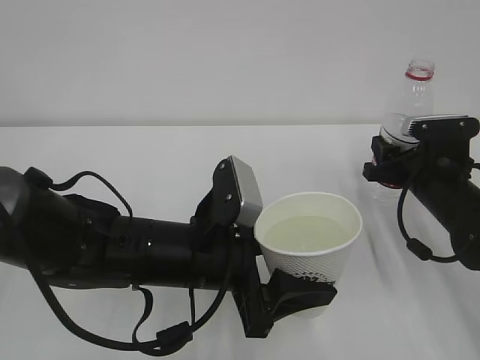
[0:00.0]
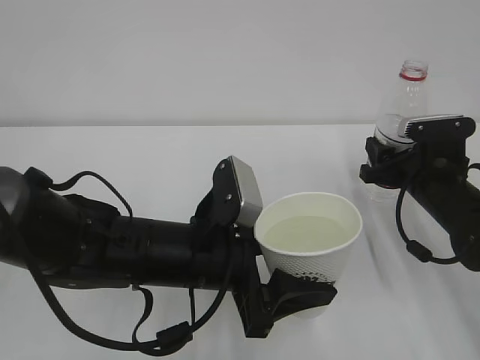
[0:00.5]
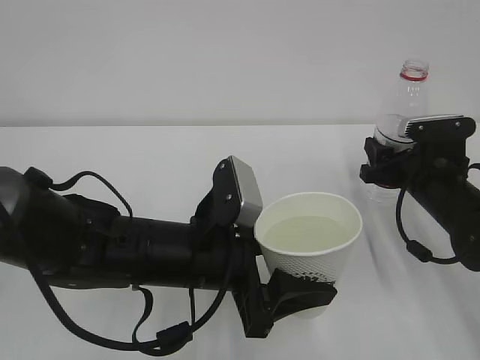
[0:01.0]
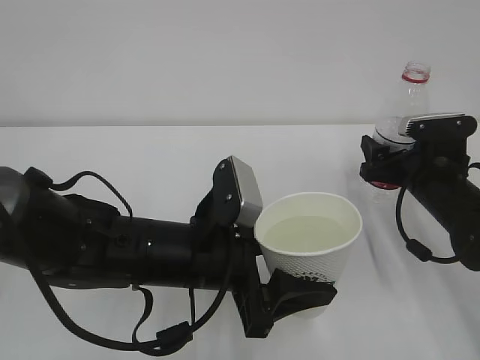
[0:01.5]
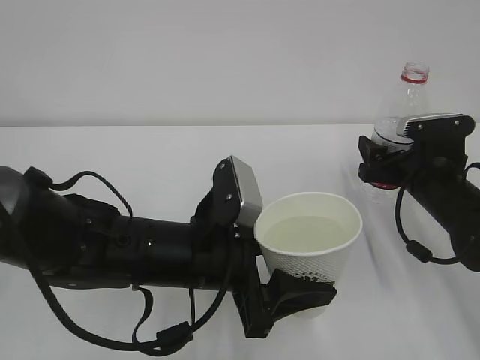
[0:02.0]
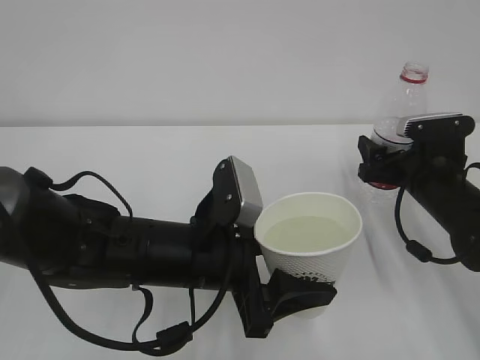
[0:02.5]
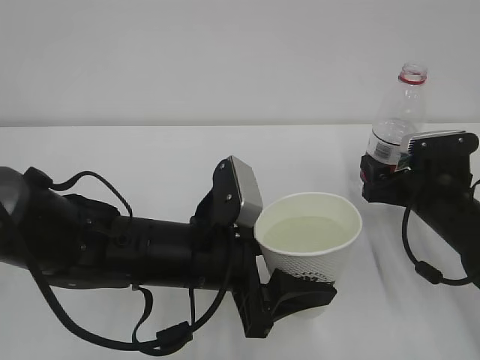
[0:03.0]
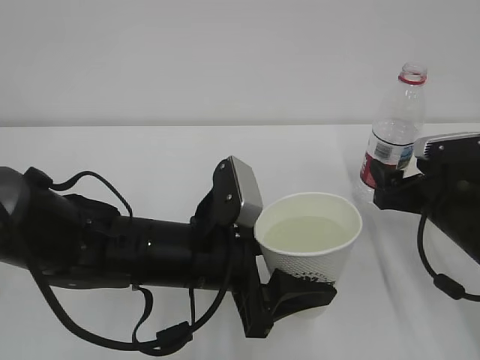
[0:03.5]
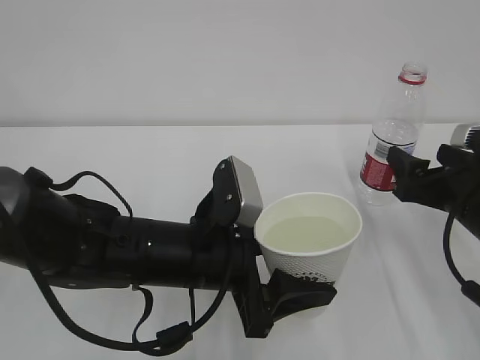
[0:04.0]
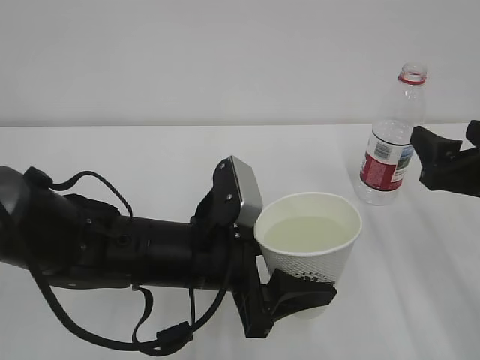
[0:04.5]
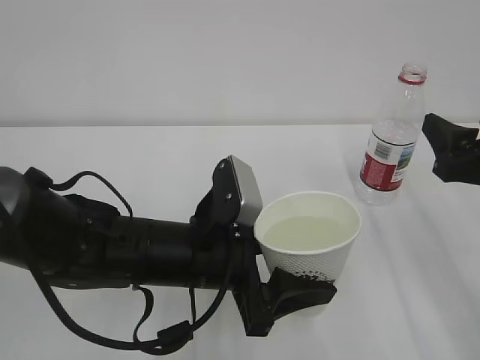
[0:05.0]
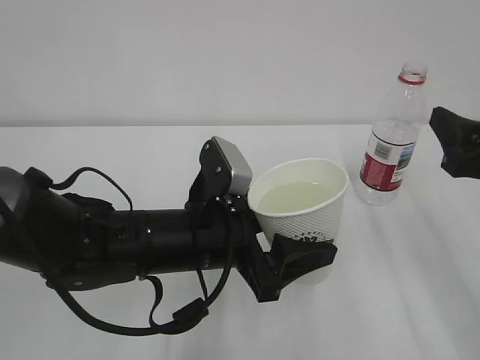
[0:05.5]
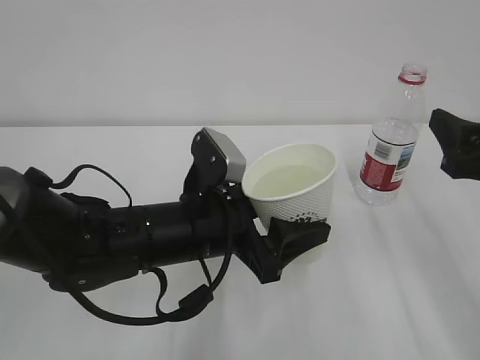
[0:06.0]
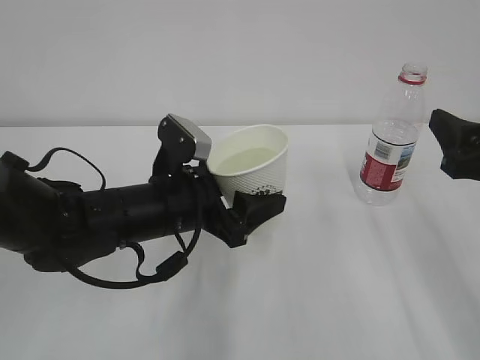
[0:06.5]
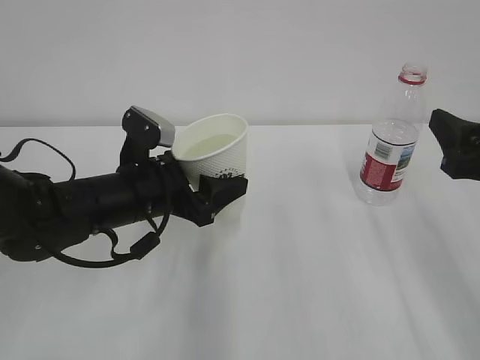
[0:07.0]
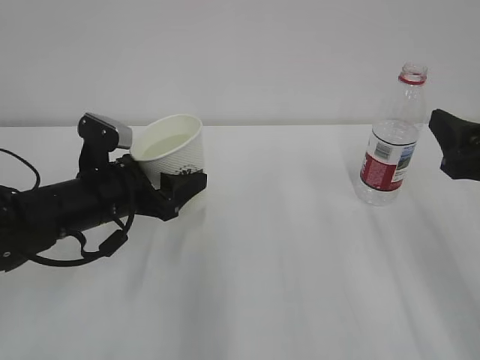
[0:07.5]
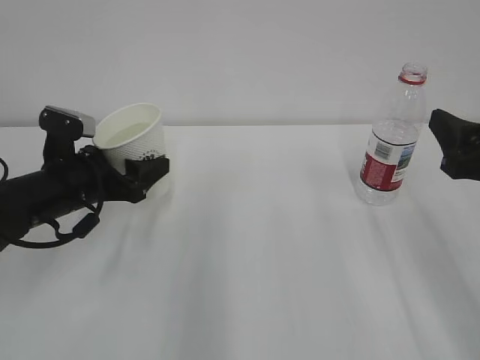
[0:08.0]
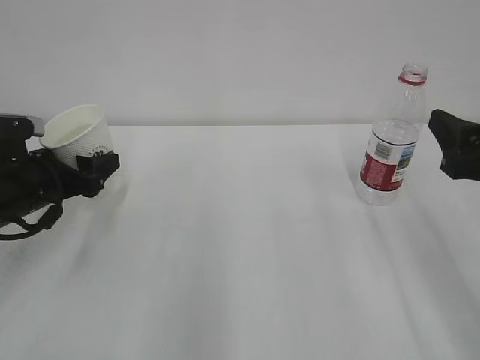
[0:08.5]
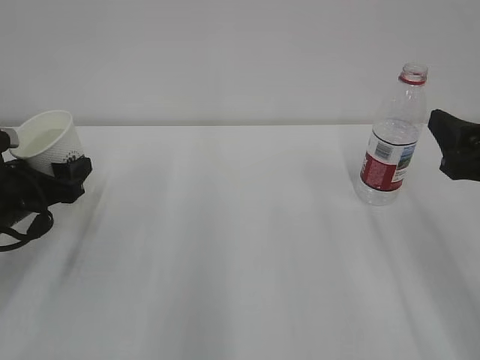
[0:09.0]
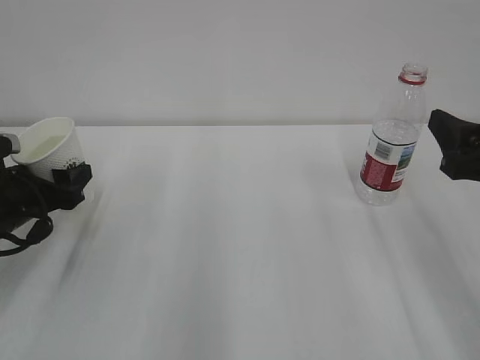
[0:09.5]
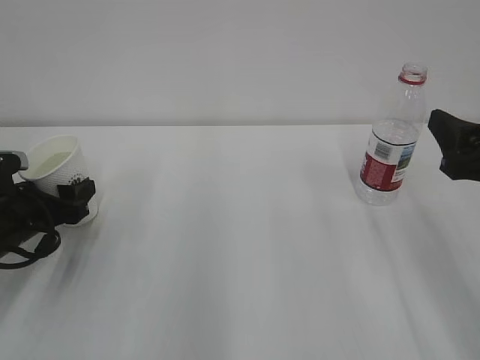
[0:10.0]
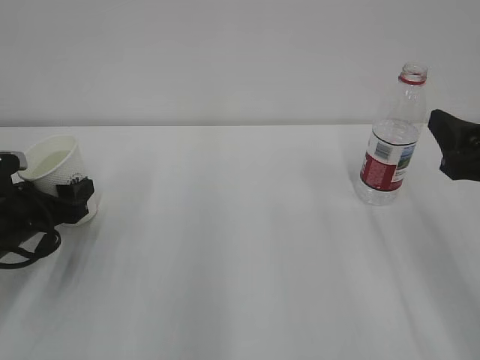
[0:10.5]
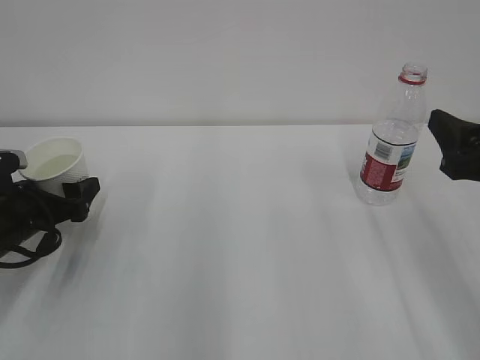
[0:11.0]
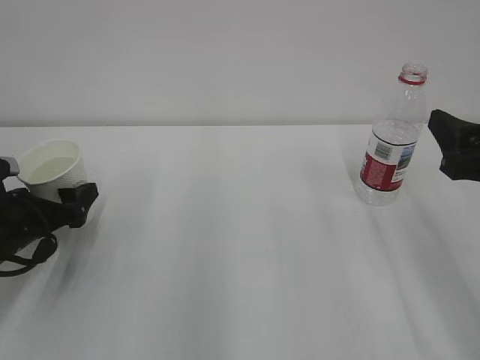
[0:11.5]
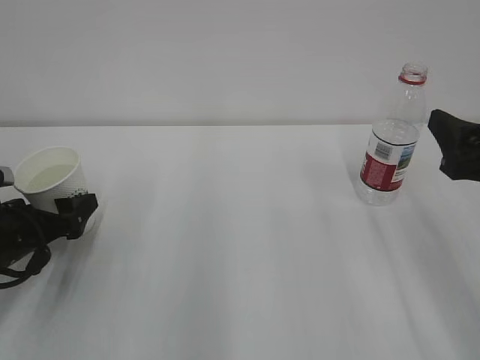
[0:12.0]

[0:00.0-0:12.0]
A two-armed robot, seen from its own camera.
0:00.0 to 0:02.0: The right gripper opens up.
0:02.0 to 0:04.0: The right gripper heads backward, covering about 10 cm.
0:04.0 to 0:06.0: The right gripper is displaced upward by approximately 10 cm.
0:06.0 to 0:08.0: The left gripper is displaced to the left and forward by roughly 20 cm.
0:08.0 to 0:10.0: The left gripper is displaced to the left by some 5 cm.
0:10.0 to 0:12.0: The left gripper opens up.

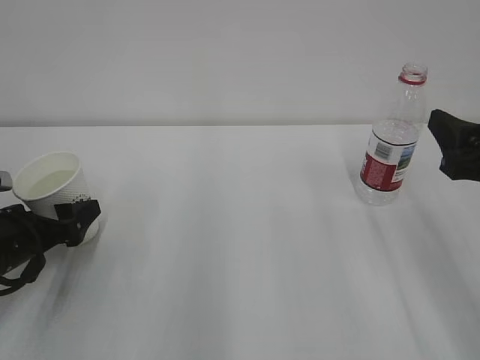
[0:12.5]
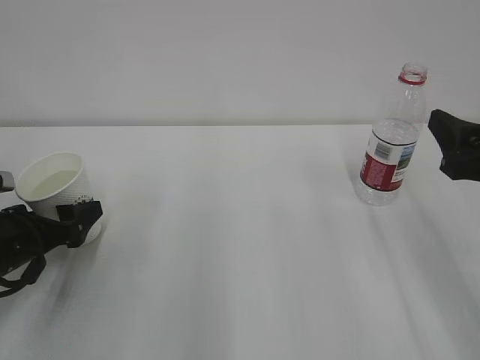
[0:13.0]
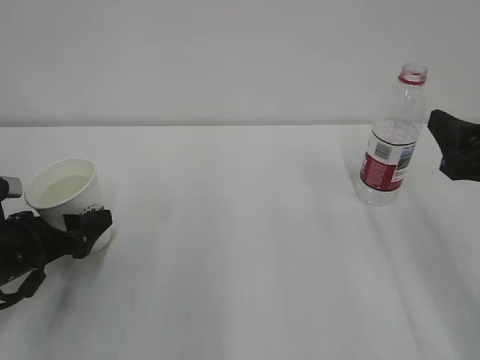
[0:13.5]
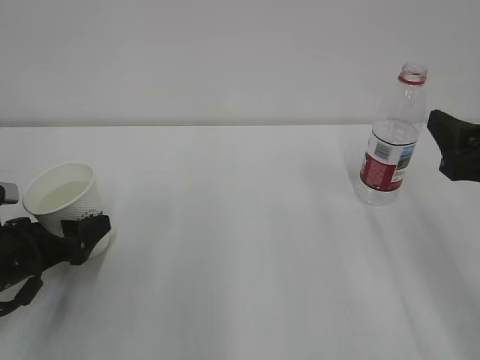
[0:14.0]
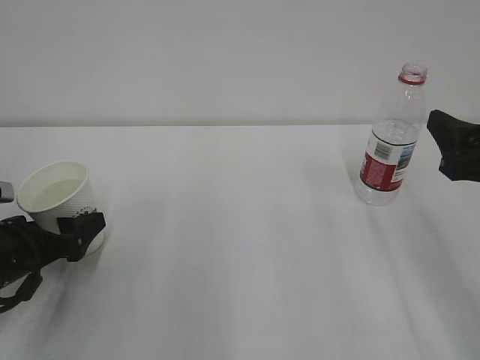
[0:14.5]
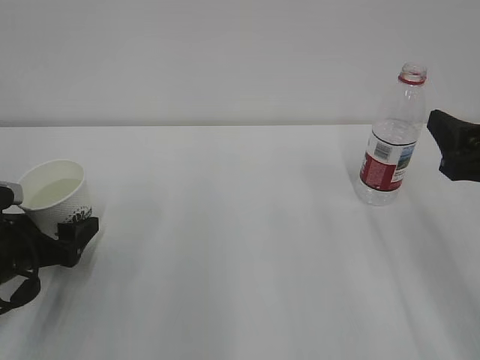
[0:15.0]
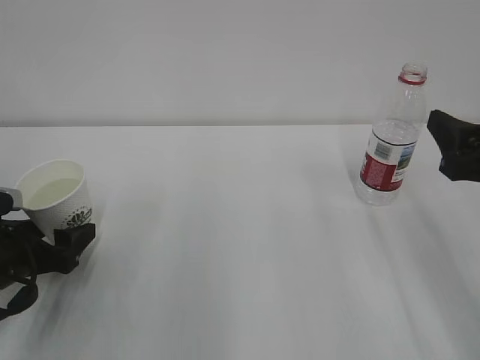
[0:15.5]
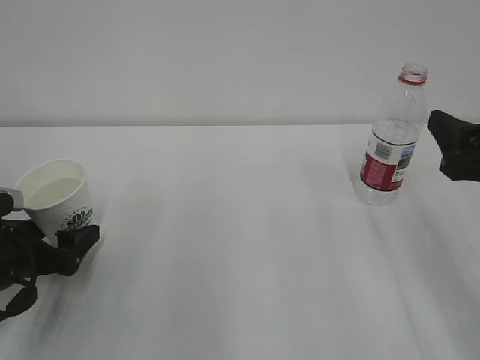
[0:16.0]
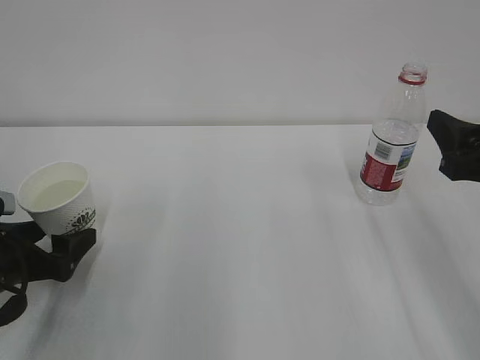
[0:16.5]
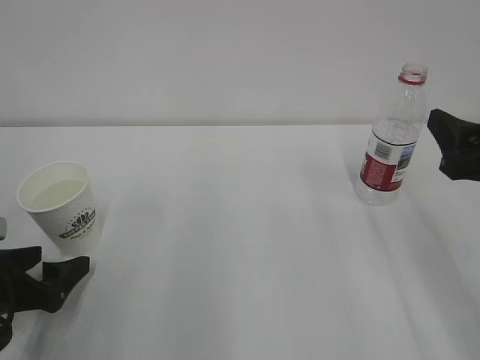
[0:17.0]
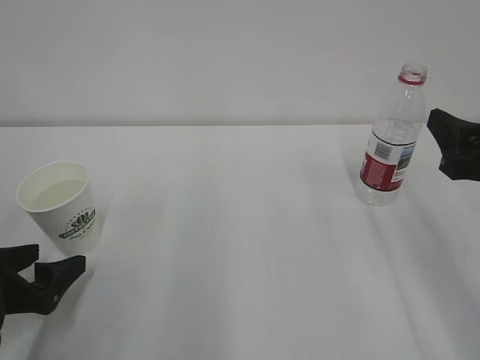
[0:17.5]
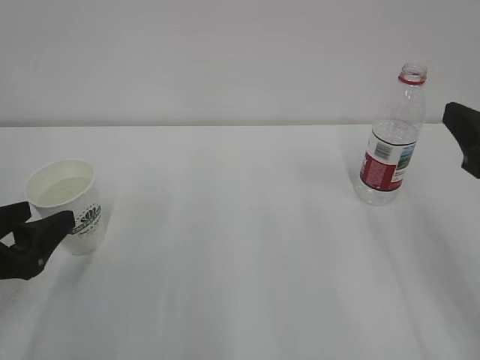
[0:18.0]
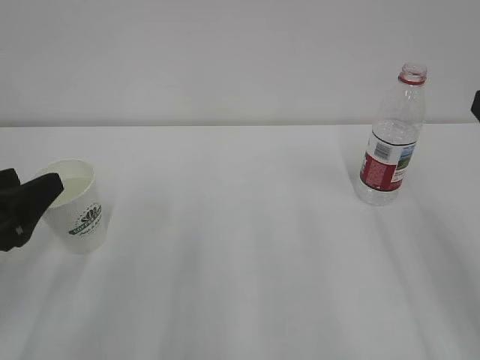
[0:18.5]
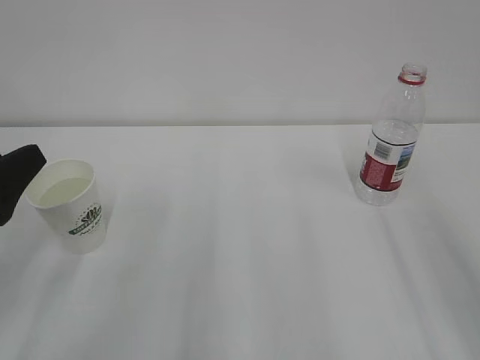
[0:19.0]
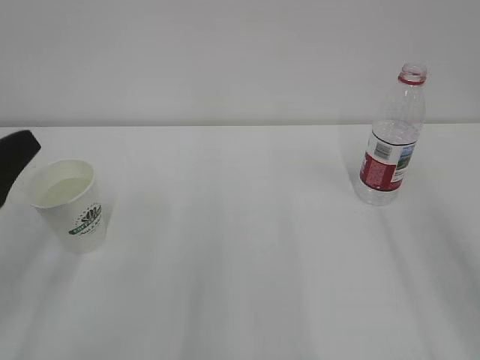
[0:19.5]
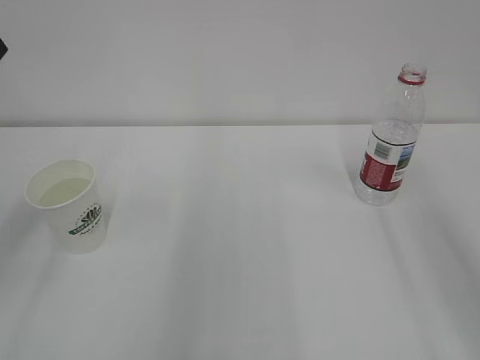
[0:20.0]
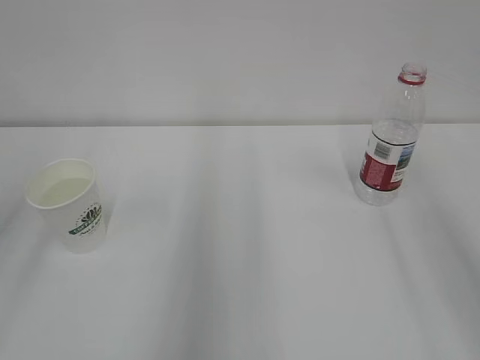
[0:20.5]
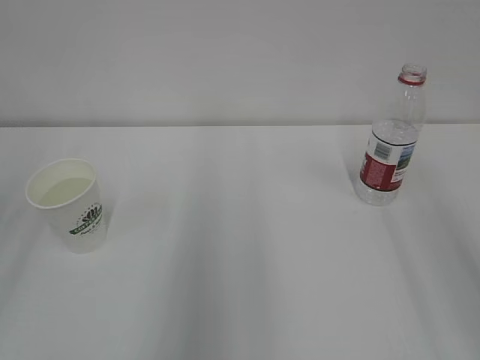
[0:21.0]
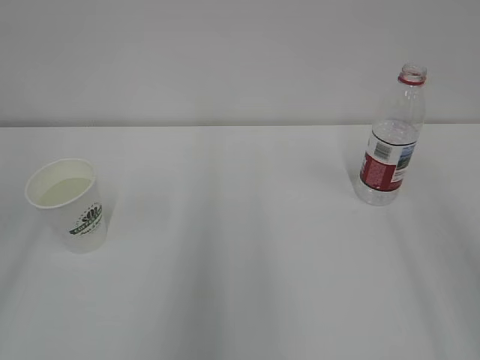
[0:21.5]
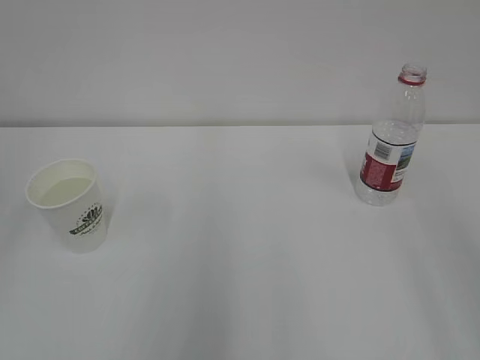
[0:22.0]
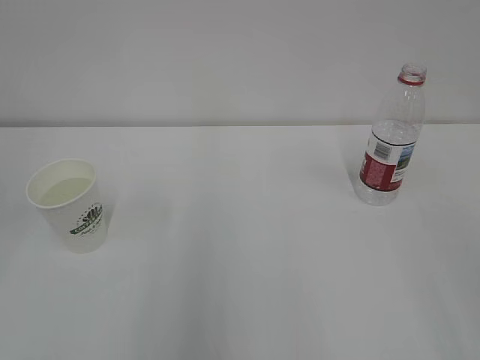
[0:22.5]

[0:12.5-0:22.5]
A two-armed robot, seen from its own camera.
0:12.5 to 0:16.5: The grippers move only a little.
0:16.5 to 0:18.5: The right gripper ends up about 5 cm from where it was. The left gripper heads upward, covering about 10 cm, and closes.
0:18.5 to 0:20.5: The left gripper heads upward, covering approximately 15 cm.
